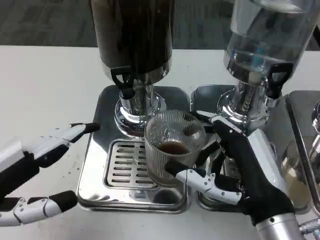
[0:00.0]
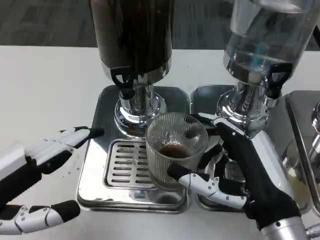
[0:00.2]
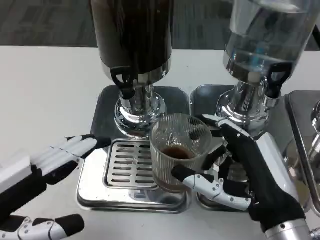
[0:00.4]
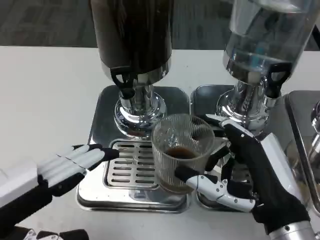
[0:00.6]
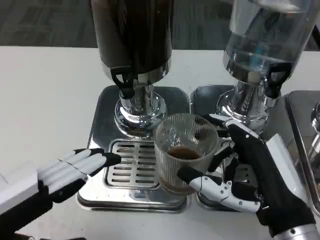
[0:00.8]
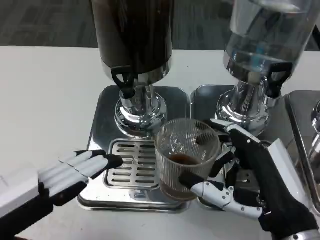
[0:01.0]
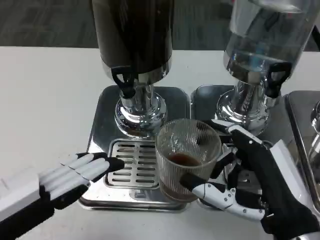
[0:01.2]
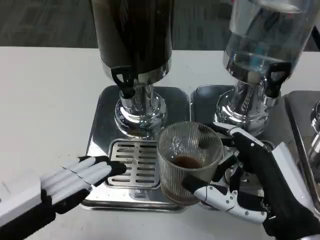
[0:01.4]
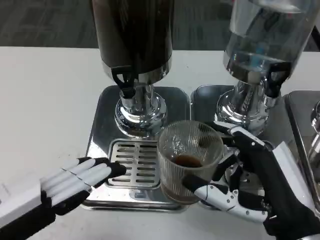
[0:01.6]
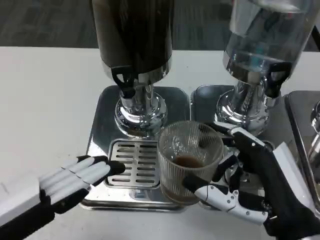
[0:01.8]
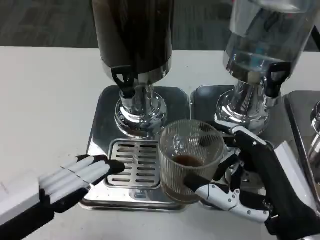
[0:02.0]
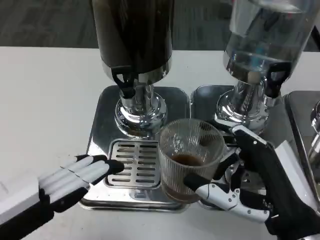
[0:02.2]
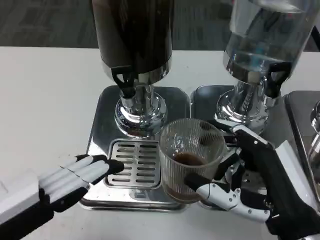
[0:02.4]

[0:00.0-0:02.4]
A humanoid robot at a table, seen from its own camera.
Task of the whole recording: Grasp the cup under the faucet to collect the drink, then remove the cup.
0:01.2 to 0:02.4: Neither hand changes place.
